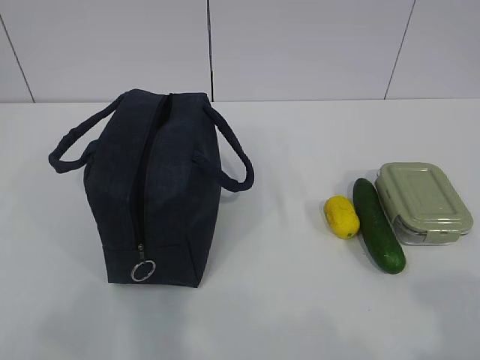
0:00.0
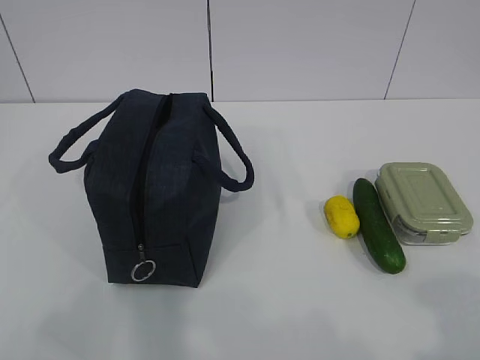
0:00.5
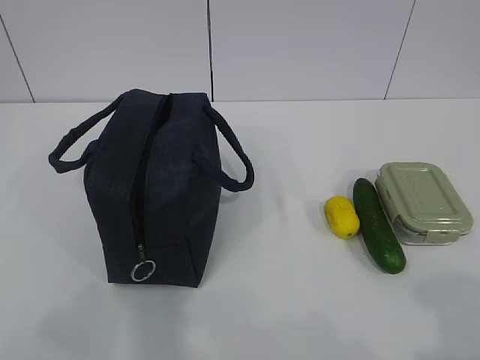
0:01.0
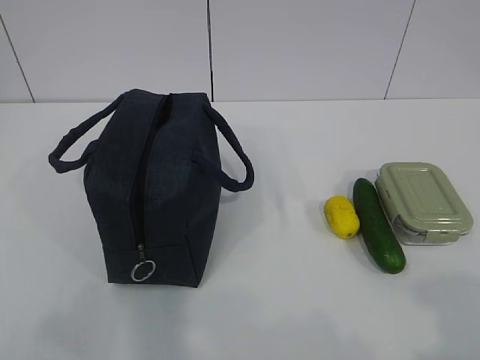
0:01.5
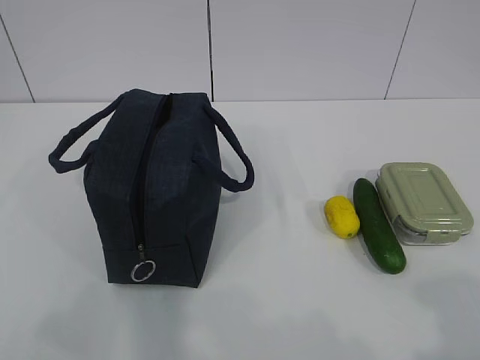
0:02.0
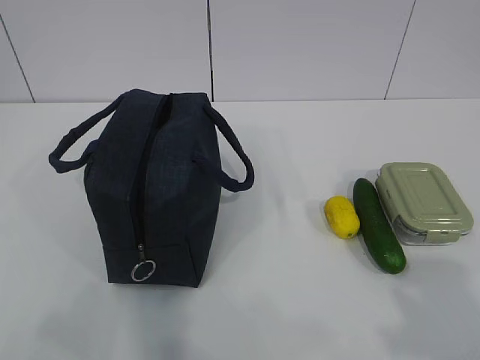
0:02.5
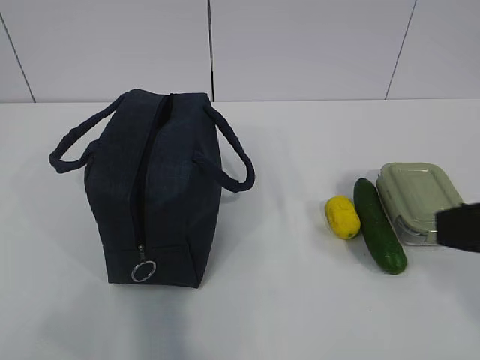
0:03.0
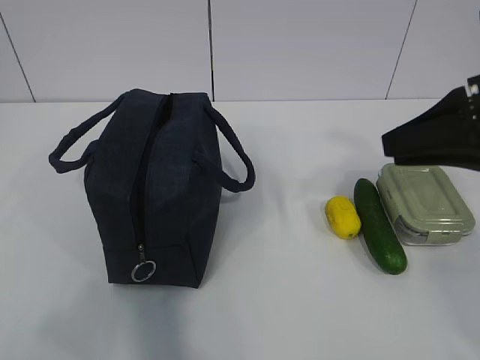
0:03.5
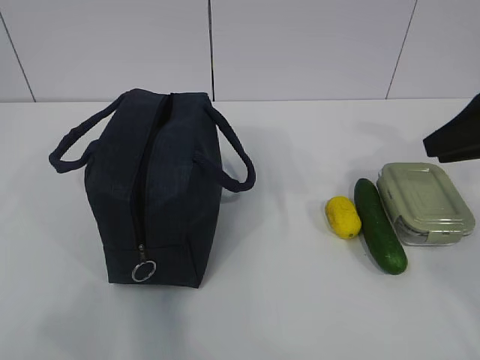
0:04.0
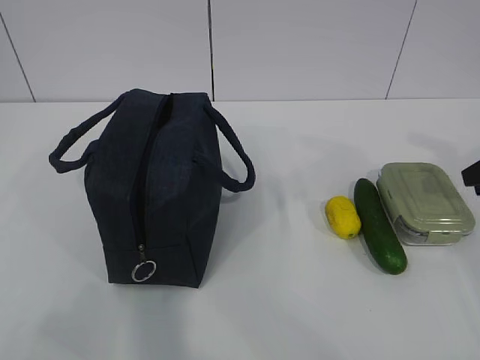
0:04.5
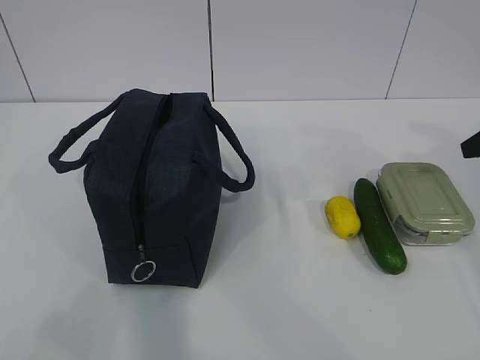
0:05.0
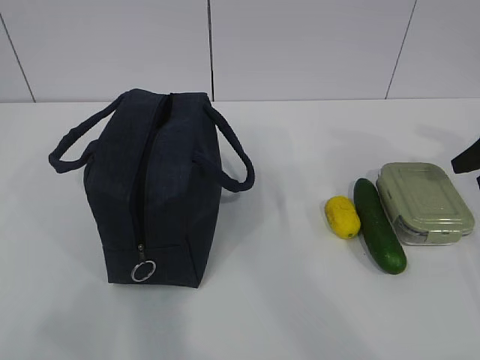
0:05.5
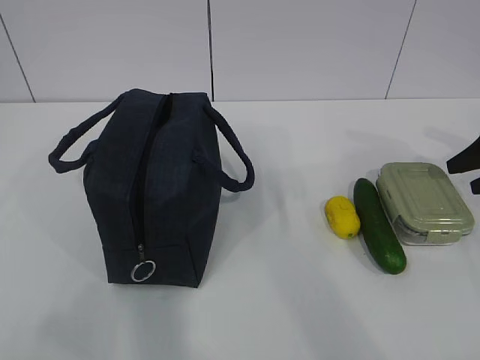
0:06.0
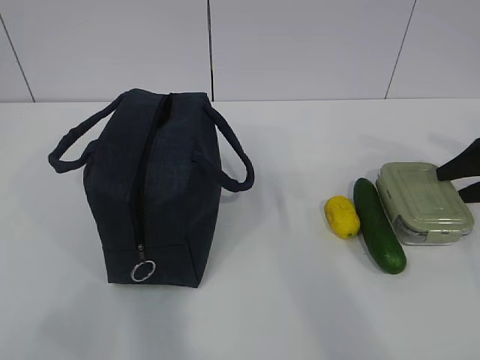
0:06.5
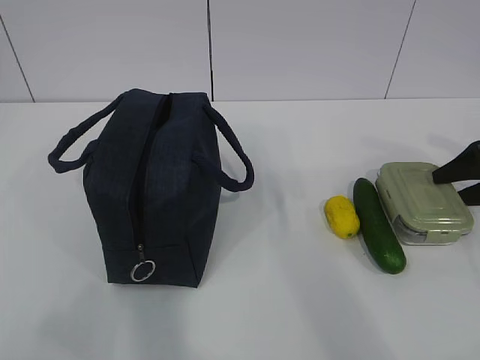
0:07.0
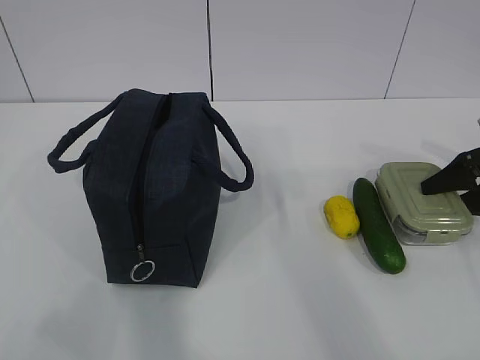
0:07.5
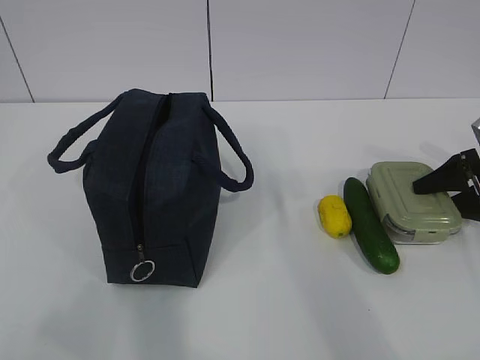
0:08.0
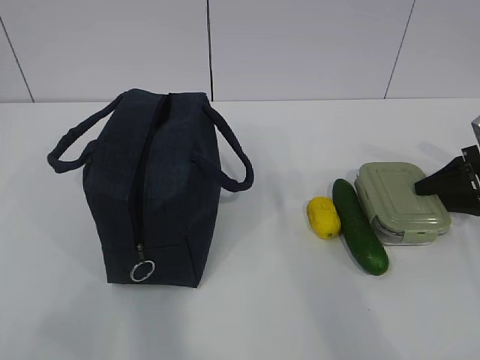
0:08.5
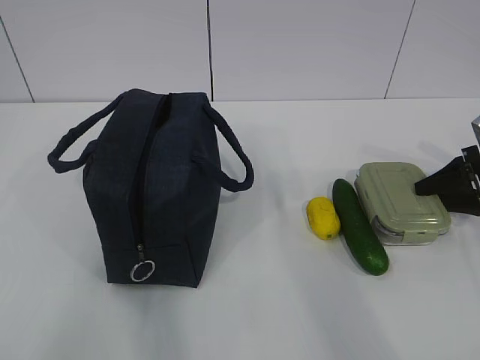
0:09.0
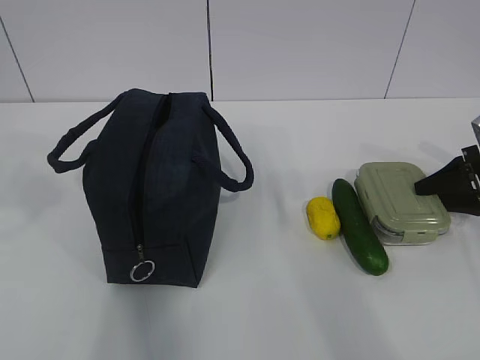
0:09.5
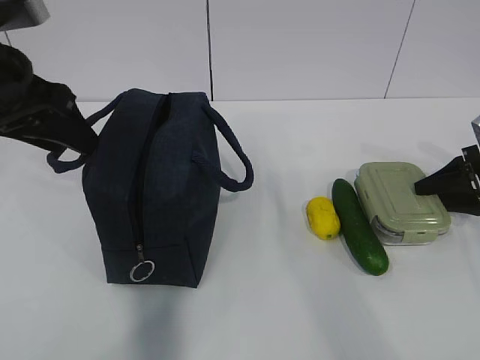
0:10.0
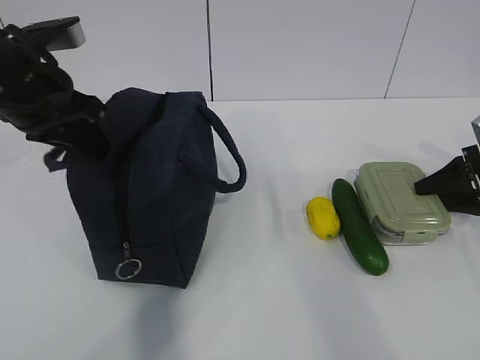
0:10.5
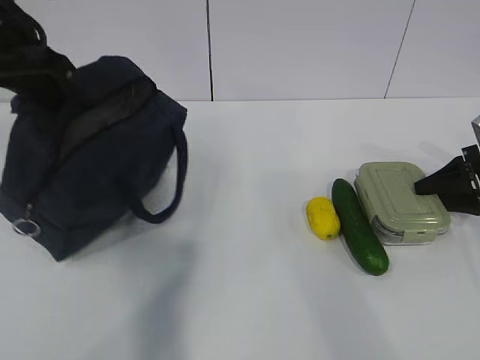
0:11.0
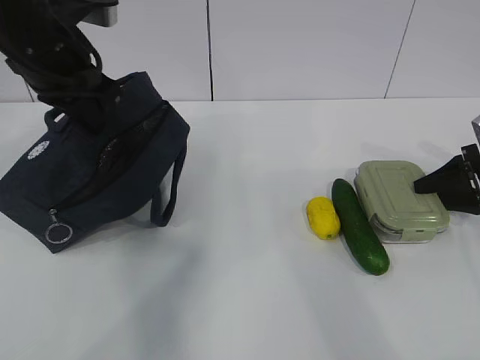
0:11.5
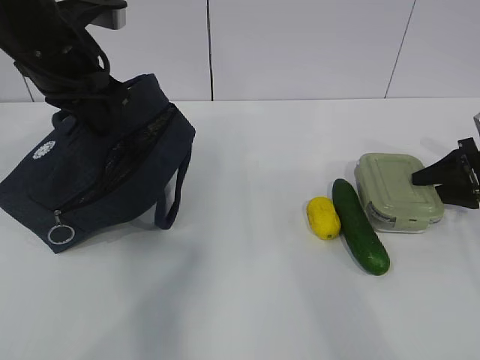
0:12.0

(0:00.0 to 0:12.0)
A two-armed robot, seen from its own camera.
Step, 0:00.0 - 0:09.0: Grasp the box with the right gripper.
0:02.0 - 0:04.0: The right gripper goes approximately 30 cm forward.
0:04.0 - 0:06.0: The right gripper goes approximately 20 cm to the right, downward and forward, and opens its fingers.
0:06.0 - 0:08.0: The right gripper moves downward, approximately 5 cm.
0:08.0 - 0:10.0: The left gripper heads forward, covering approximately 30 cm, and opens up.
0:10.0 - 0:12.0: The left gripper moves forward, about 5 cm, and closes up.

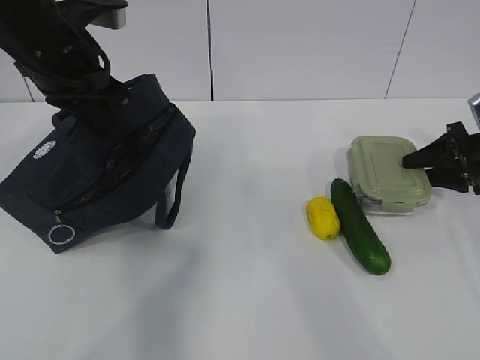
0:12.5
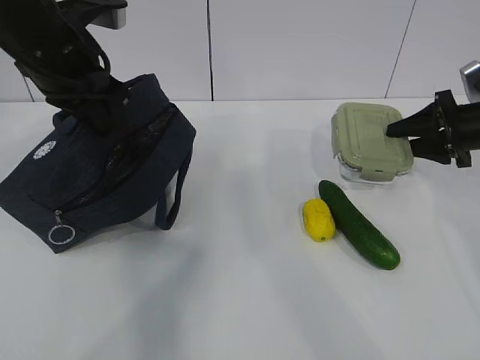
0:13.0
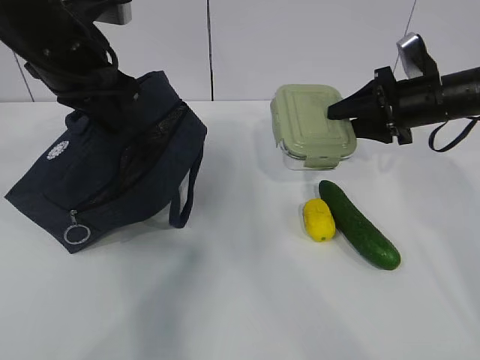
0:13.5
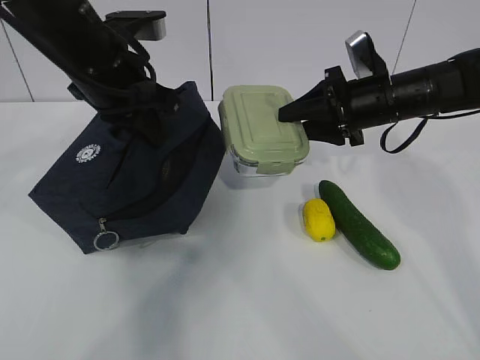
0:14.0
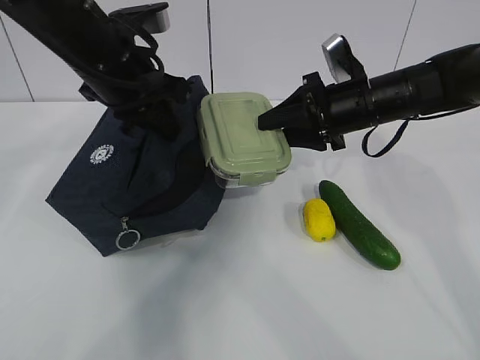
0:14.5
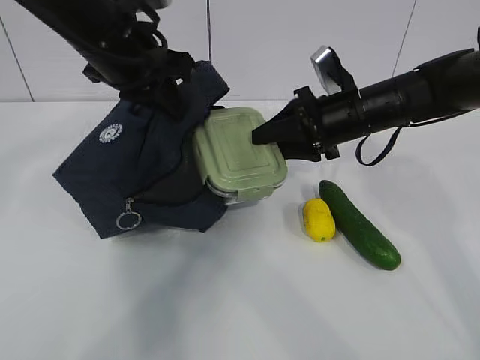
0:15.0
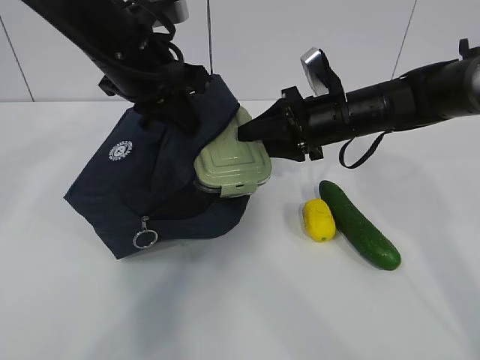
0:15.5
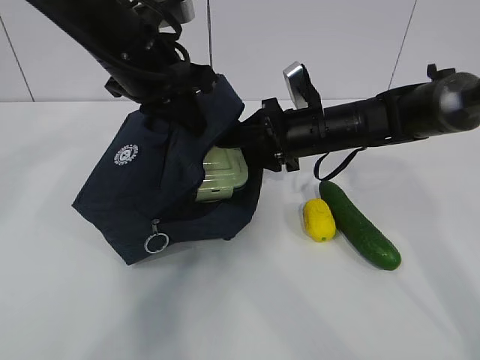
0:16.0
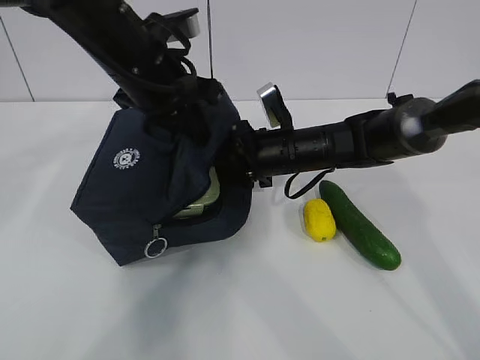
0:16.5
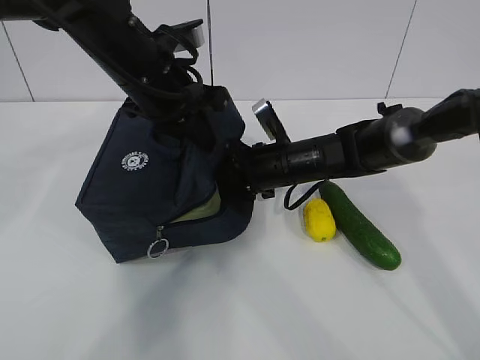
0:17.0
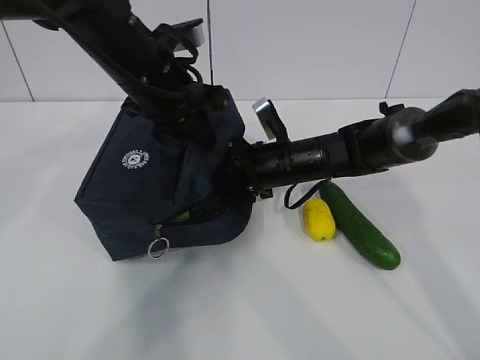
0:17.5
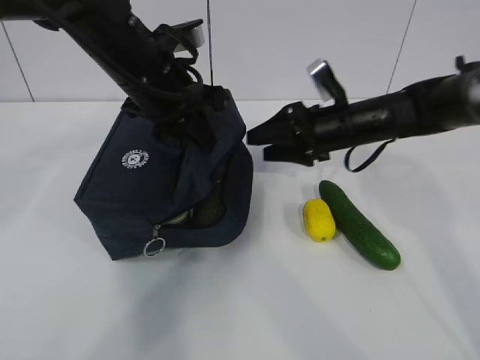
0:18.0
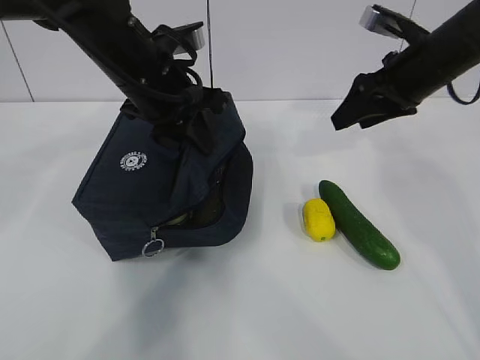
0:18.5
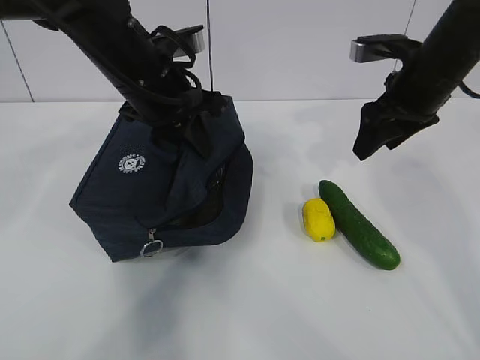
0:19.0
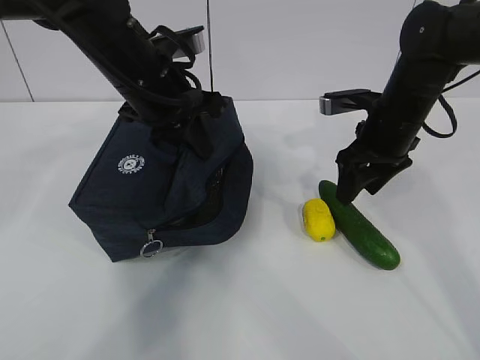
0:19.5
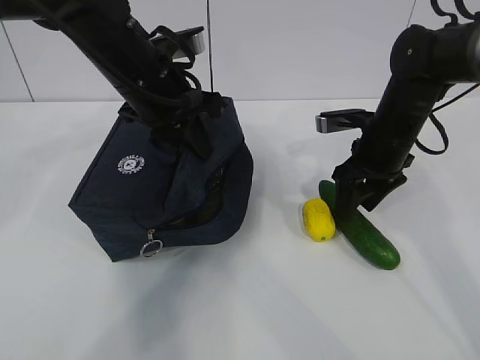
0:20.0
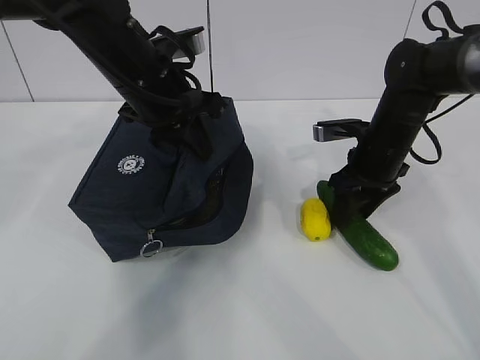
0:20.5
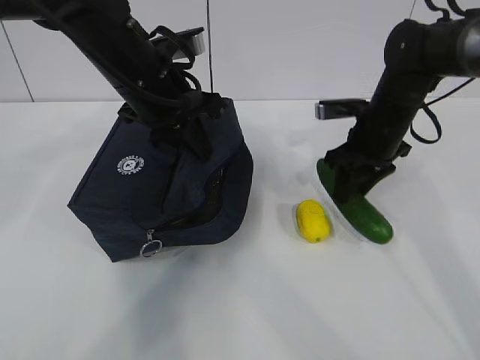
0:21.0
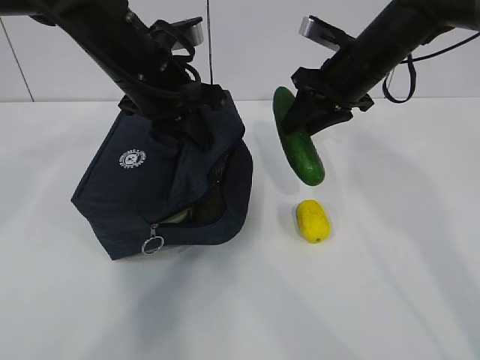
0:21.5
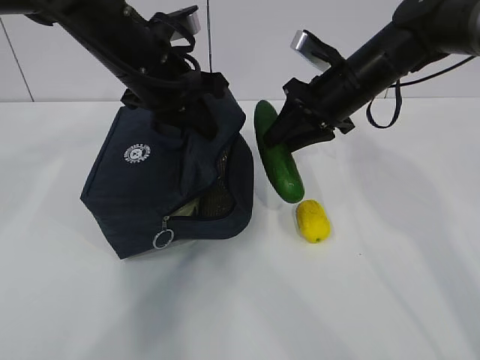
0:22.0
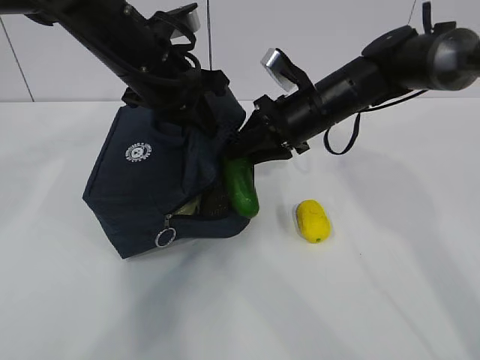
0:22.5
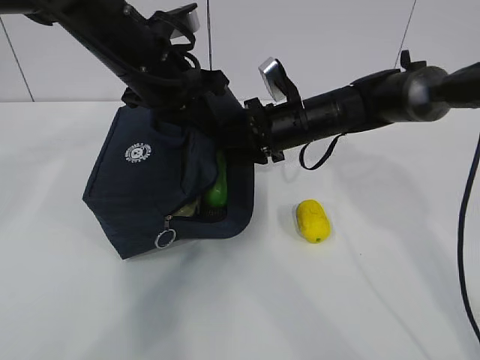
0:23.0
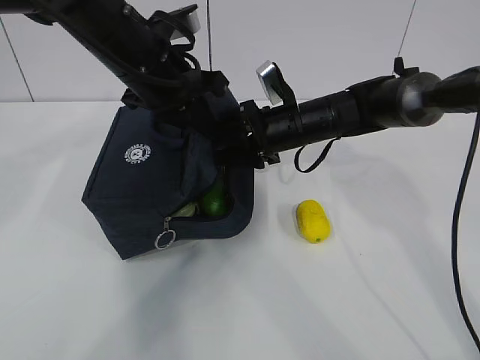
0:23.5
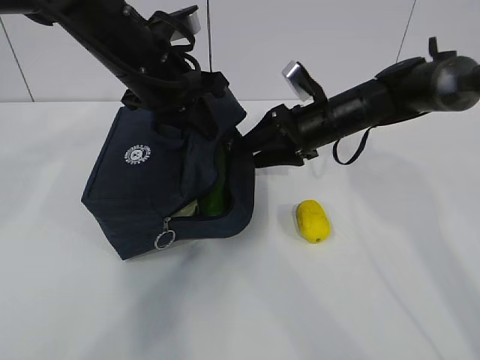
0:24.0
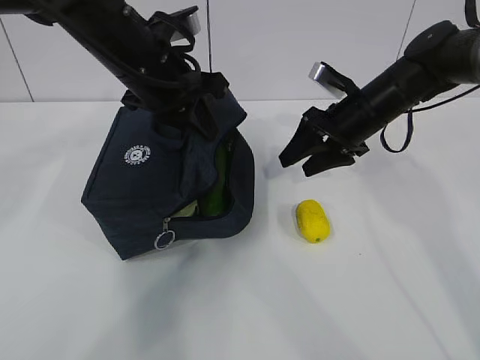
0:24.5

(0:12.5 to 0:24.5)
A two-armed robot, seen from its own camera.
Step, 0:12.5 - 0:17.5: Grasp the package with the left gripper.
Step, 0:18.0 - 0:20.5: Grasp the cucumber with the right gripper.
Step, 0:21.0 - 0:23.5: Place the cucumber into the package with the right gripper.
0:12.5 - 0:14.5: The right gripper shifts roughly 20 cm to the left; the left gripper moves approximately 5 cm.
0:14.5 - 0:16.5: The right gripper shifts about 10 cm to the left and downward.
0:16.5 - 0:18.5: The right gripper is displaced to the right and upward by roughly 20 cm.
0:18.5 - 0:20.5: The right gripper is displaced downward by roughly 10 cm.
0:20.5 - 0:22.5: The right gripper moves to the left, roughly 10 cm.
0:22.5 - 0:24.5: The right gripper is displaced to the right by some 5 cm, and opens.

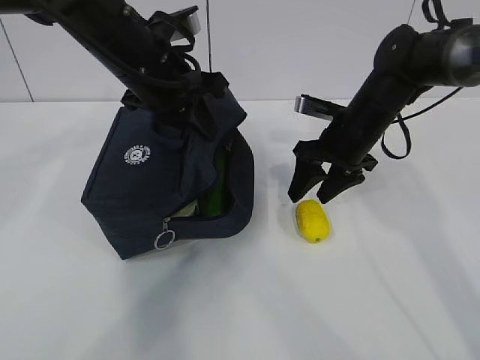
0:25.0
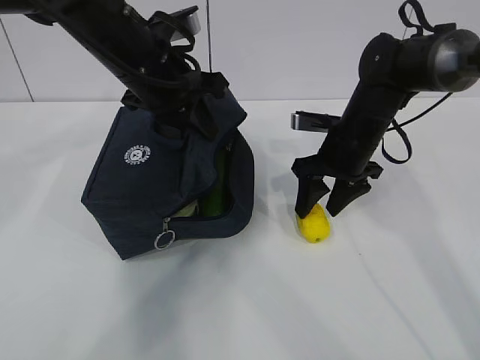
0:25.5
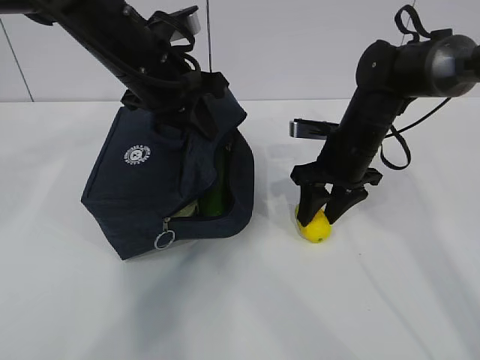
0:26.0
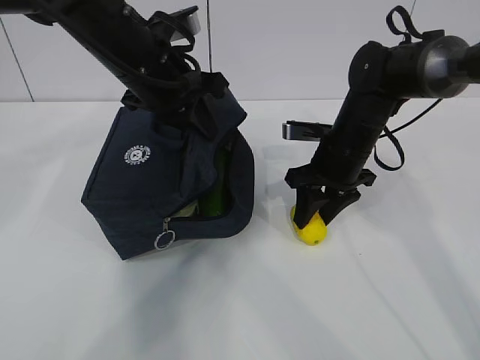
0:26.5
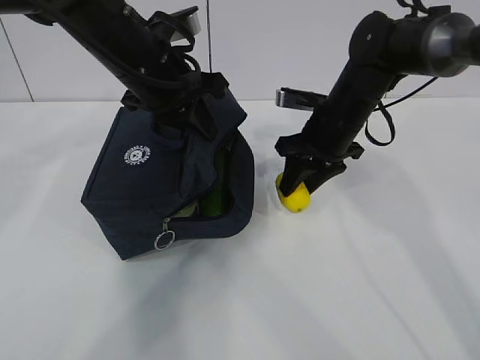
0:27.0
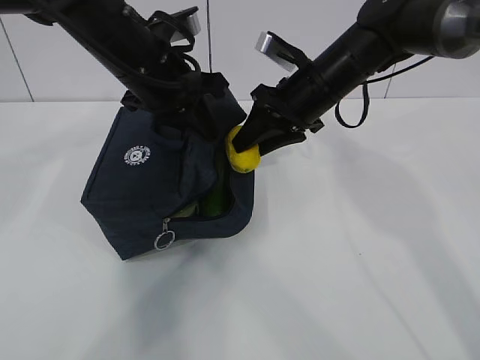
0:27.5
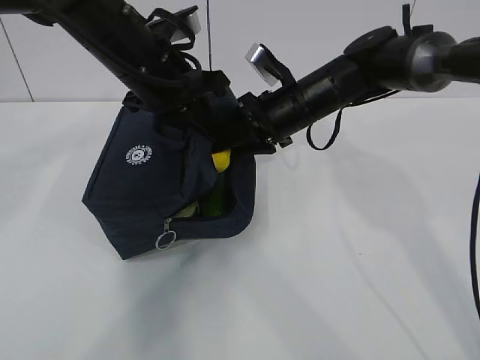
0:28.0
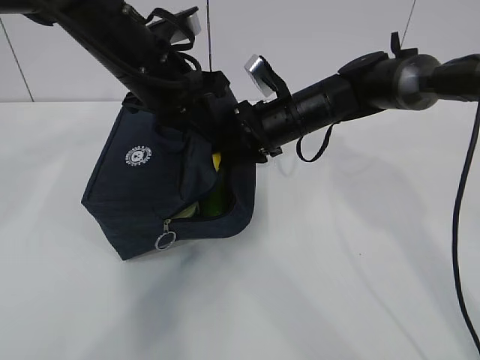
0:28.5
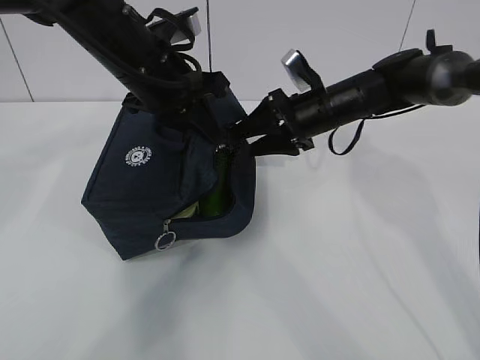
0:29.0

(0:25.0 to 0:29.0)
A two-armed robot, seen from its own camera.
Step, 0:26.5 - 0:29.0: Place the lemon into the package with the right gripper.
0:25.0 - 0:27.0: The grippers make only small movements.
